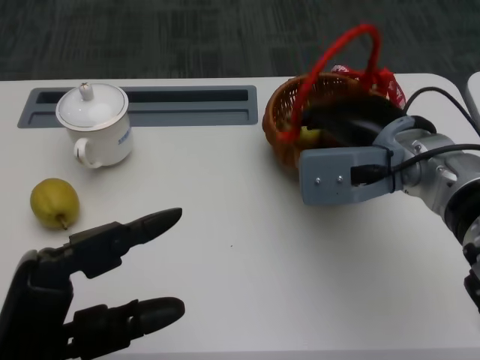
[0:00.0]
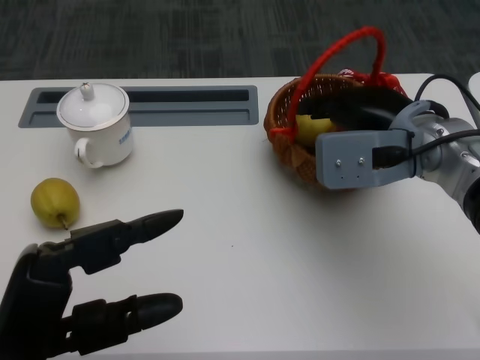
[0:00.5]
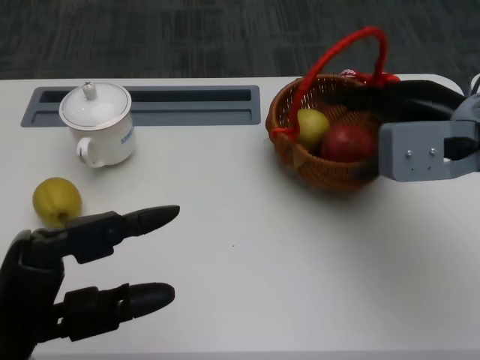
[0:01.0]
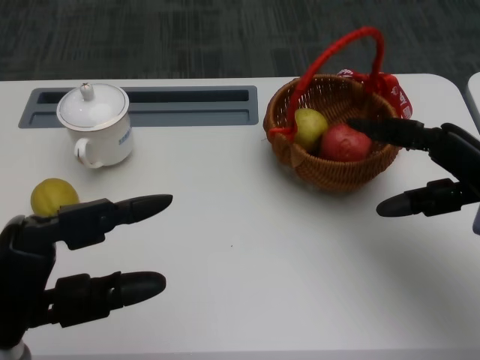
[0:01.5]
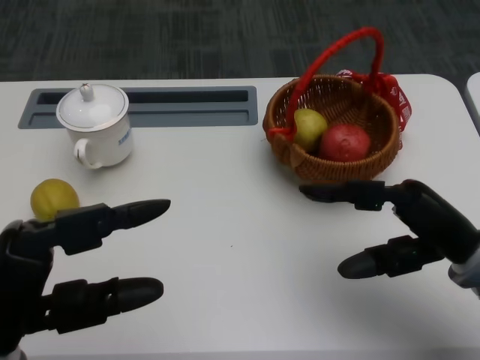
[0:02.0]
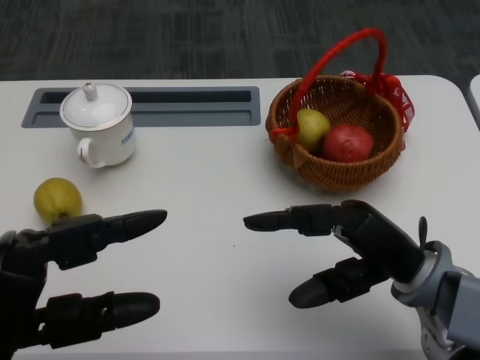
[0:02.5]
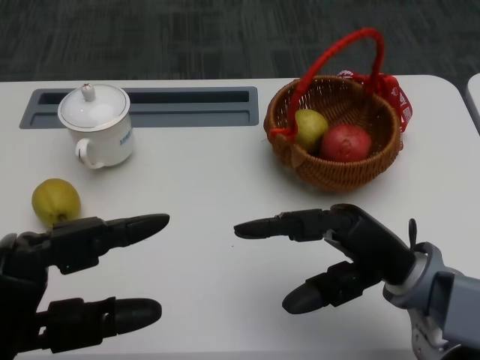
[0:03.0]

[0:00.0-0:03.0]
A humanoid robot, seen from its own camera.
0:00.0 to 0:01.5: The right hand heads to the right, covering about 10 cm.
0:01.5 to 0:03.0: The right hand is displaced to the left and backward by roughly 10 cm.
